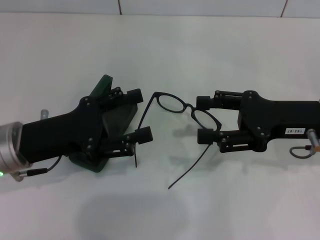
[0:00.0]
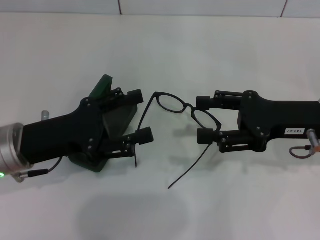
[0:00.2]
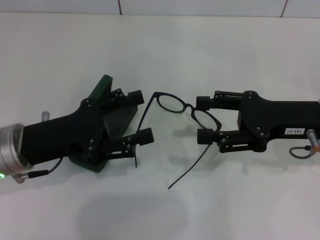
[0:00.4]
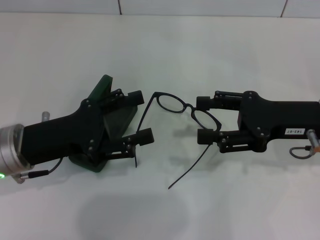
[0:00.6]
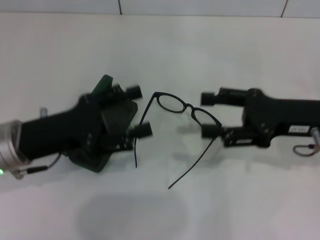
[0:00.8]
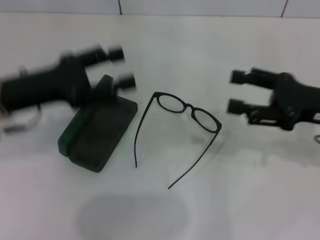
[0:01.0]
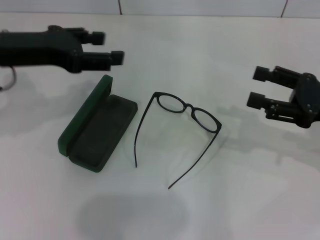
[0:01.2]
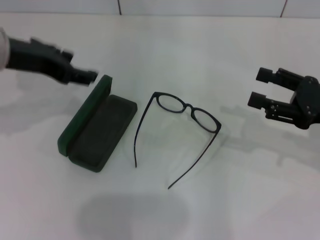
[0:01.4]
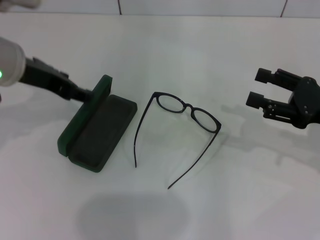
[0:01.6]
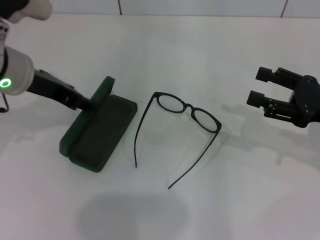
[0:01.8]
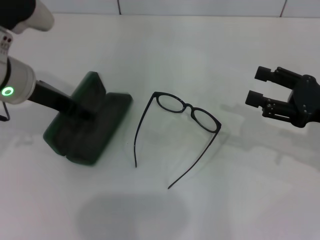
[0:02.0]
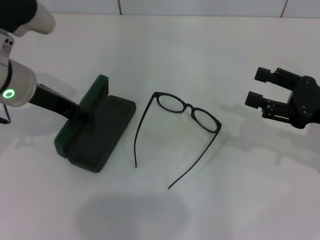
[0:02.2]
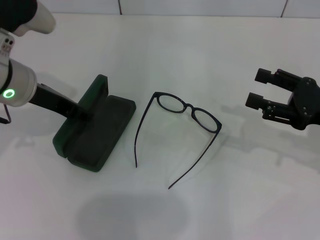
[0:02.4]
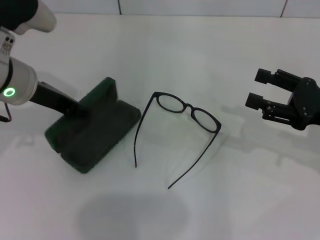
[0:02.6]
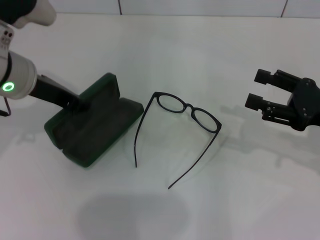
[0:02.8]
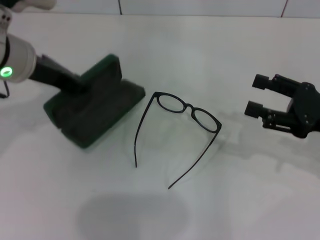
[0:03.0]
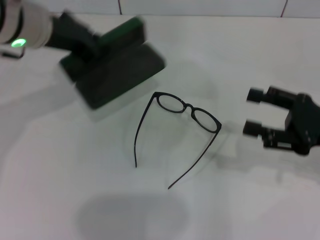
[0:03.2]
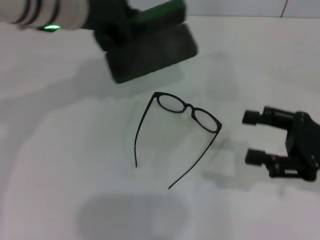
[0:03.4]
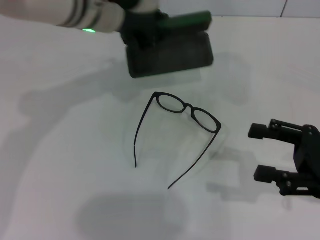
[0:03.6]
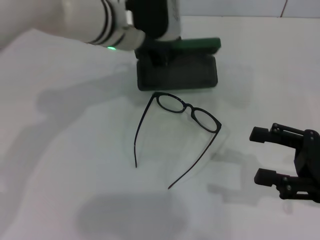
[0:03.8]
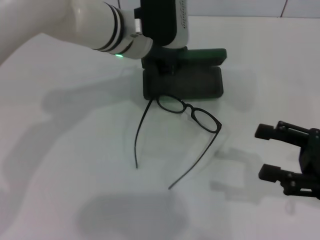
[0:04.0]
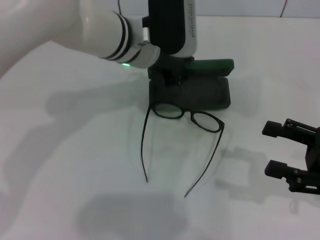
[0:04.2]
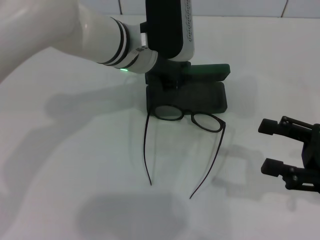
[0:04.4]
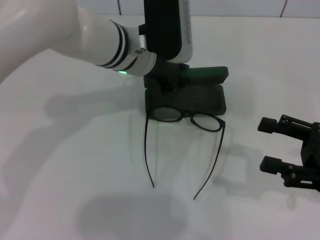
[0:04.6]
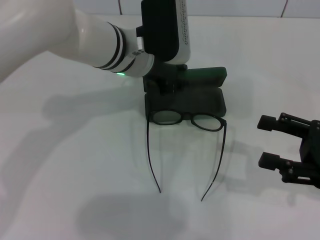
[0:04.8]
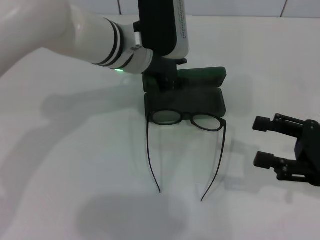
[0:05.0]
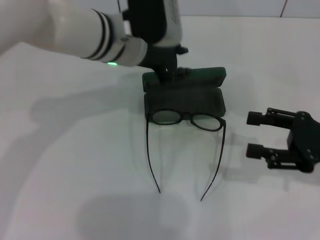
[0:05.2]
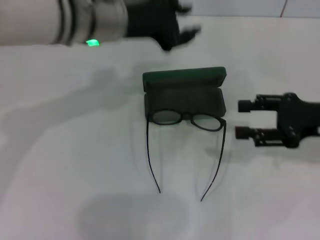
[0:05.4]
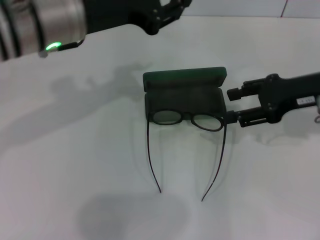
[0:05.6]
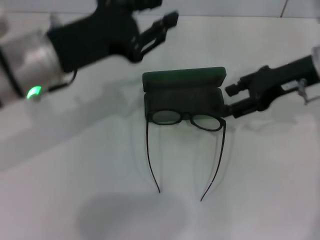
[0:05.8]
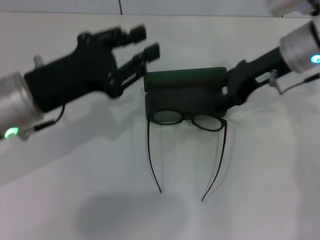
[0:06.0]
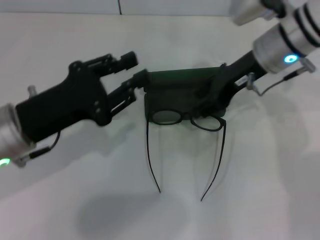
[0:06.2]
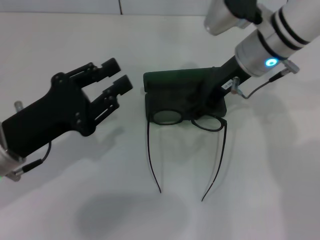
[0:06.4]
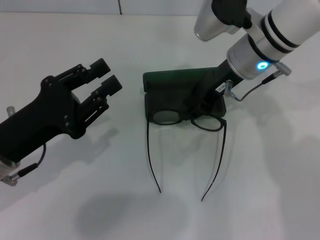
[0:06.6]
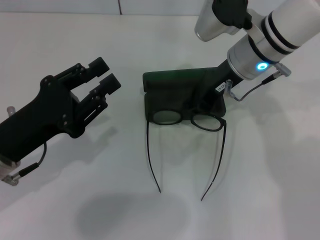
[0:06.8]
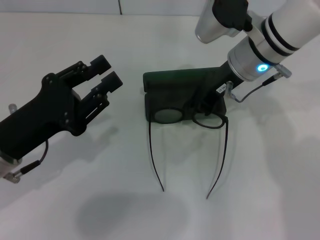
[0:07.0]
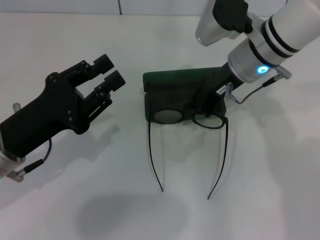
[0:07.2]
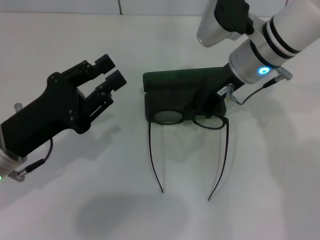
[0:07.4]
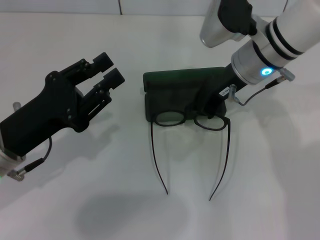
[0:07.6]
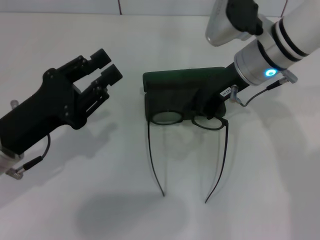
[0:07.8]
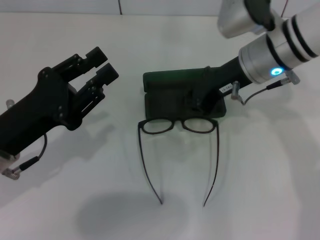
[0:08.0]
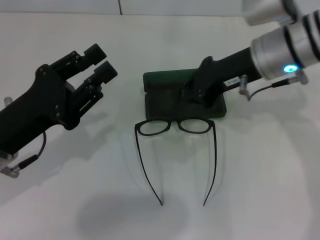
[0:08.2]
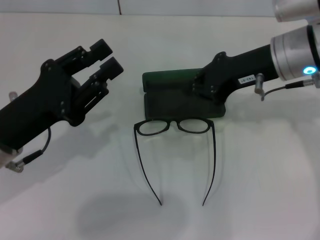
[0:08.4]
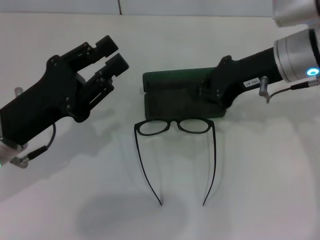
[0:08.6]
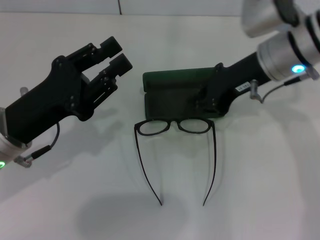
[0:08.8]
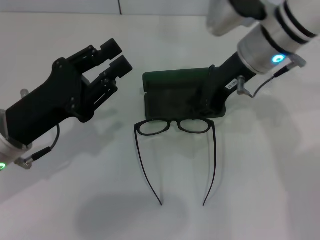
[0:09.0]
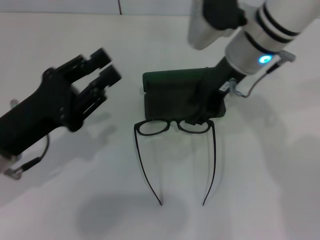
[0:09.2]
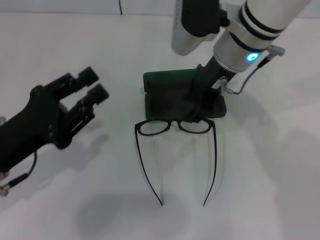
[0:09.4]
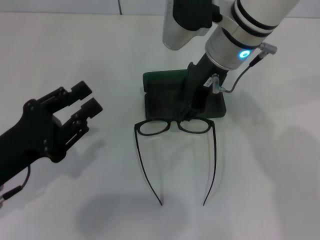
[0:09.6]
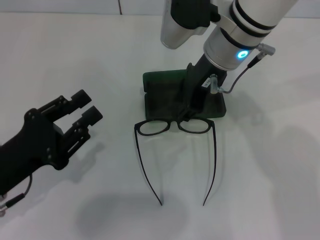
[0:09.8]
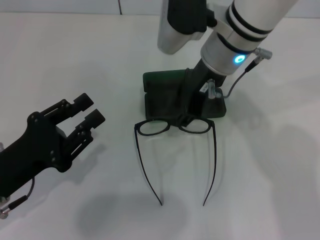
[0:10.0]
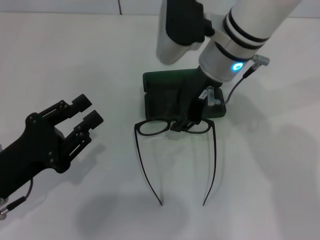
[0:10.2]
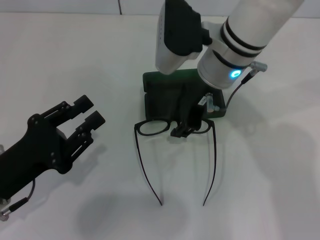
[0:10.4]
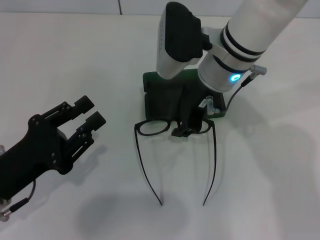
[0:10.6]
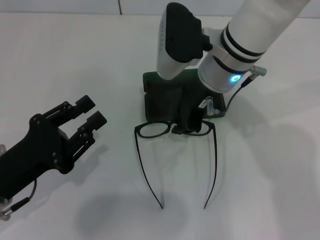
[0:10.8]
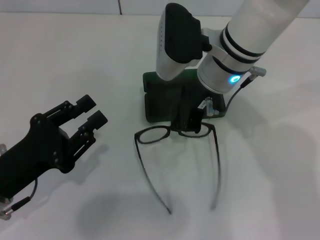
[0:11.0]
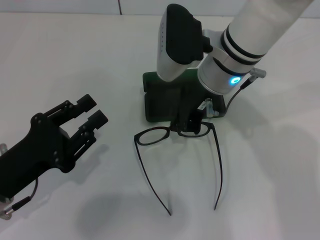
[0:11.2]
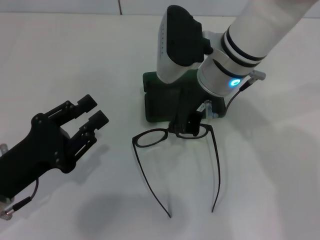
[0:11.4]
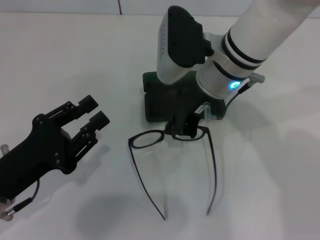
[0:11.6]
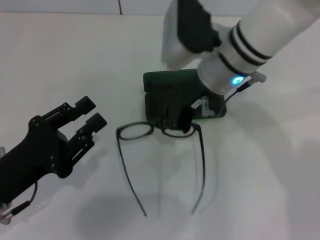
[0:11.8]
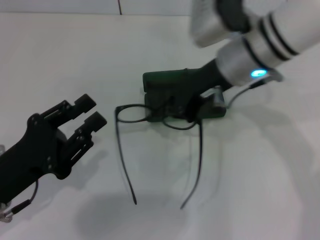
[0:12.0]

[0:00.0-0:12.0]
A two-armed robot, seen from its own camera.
Step, 0:00.0 to 0:02.4: Grab the glasses case with your left hand.
Step, 0:02.6 to 0:05.0: Place the glasses case in the center of the table with your left hand.
Step, 0:05.2 to 0:11.4: Grab the eyeglass frame with your right hand.
0:00.0 to 0:01.6: The right gripper travels to the right by approximately 5 cm; the left gripper moves upward and forward, approximately 15 cm.
0:01.6 to 0:03.0: The left gripper closes its fingers.
0:03.0 to 0:04.4: The left gripper moves to the right, approximately 15 cm; the right gripper goes roughly 5 cm backward.
0:04.4 to 0:06.0: The right gripper moves forward, to the left and upward, roughly 25 cm. The left gripper moves to the left and backward, some 20 cm.
0:06.0 to 0:07.6: The left gripper goes approximately 5 cm downward, while the right gripper heads to the left, covering roughly 5 cm, and closes up.
0:09.0 to 0:10.4: The right gripper goes some 5 cm to the left, and opens its fingers. The left gripper is displaced backward by approximately 5 cm.
0:10.4 to 0:12.0: The right gripper closes its fingers.

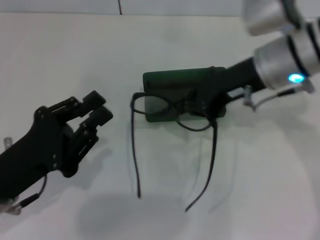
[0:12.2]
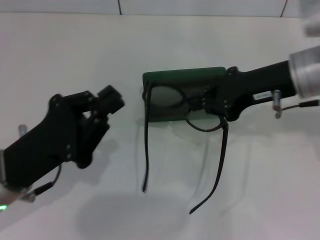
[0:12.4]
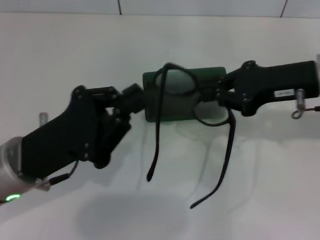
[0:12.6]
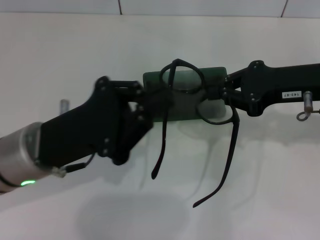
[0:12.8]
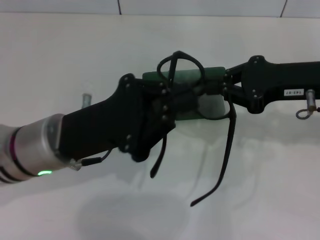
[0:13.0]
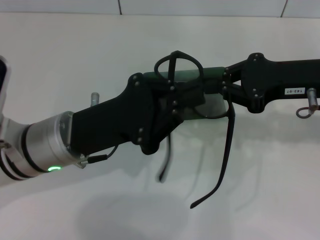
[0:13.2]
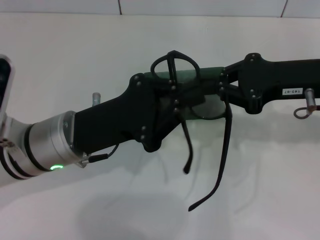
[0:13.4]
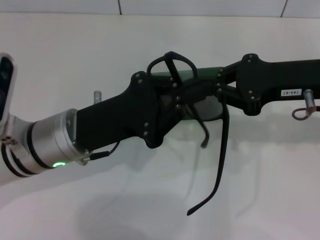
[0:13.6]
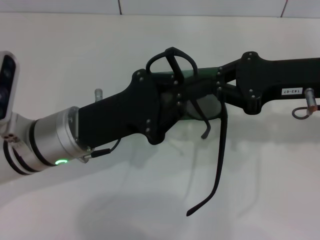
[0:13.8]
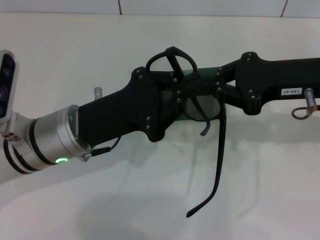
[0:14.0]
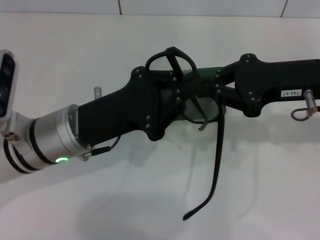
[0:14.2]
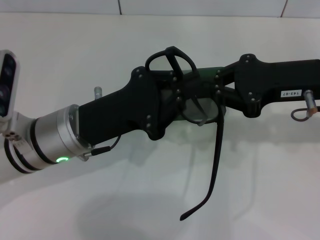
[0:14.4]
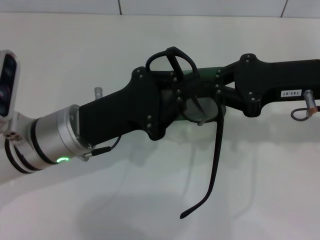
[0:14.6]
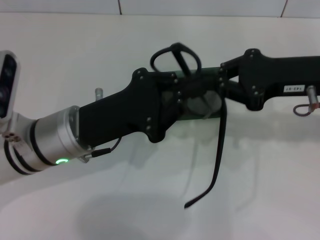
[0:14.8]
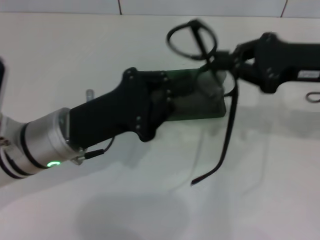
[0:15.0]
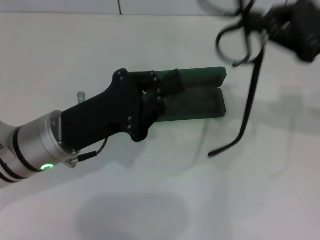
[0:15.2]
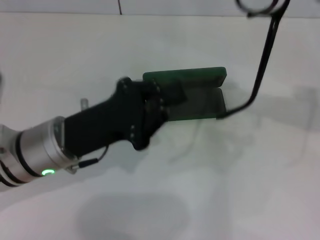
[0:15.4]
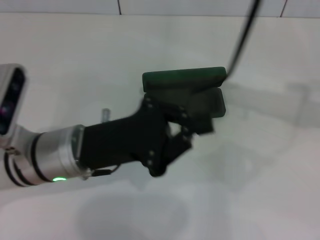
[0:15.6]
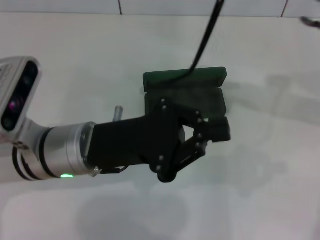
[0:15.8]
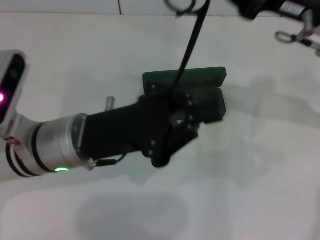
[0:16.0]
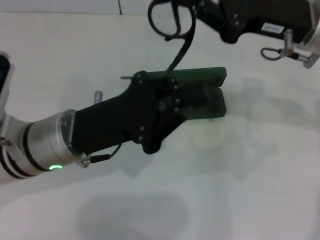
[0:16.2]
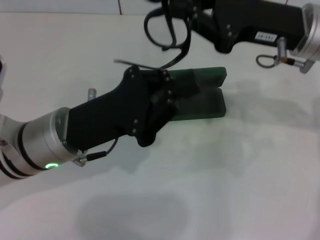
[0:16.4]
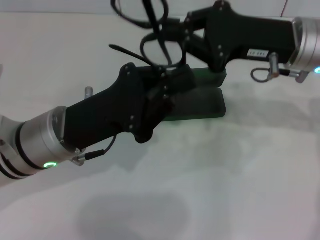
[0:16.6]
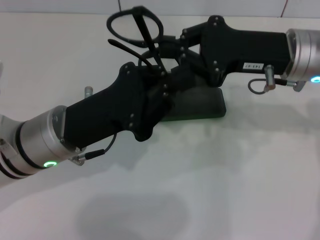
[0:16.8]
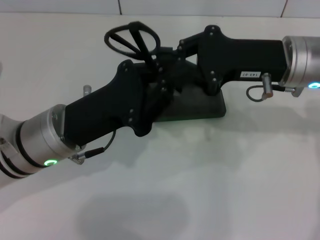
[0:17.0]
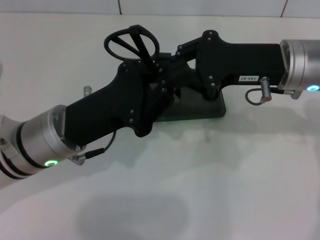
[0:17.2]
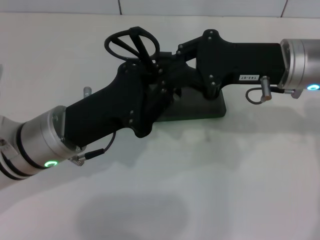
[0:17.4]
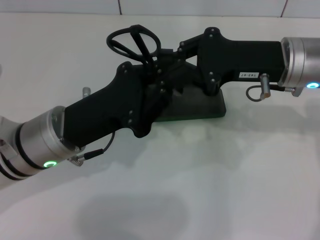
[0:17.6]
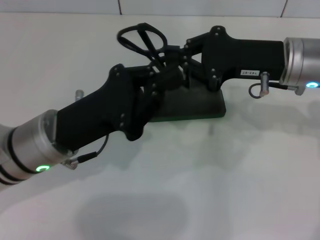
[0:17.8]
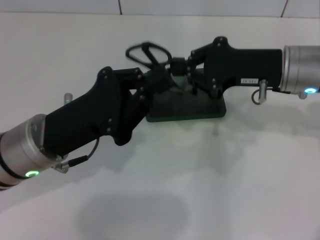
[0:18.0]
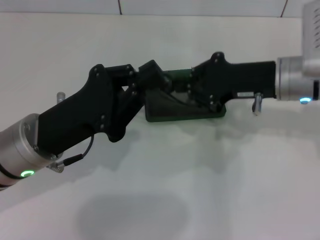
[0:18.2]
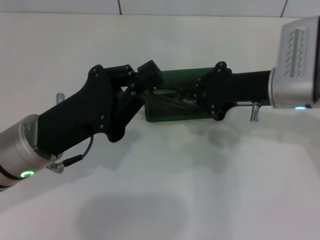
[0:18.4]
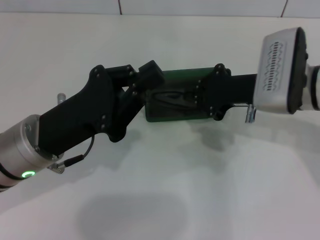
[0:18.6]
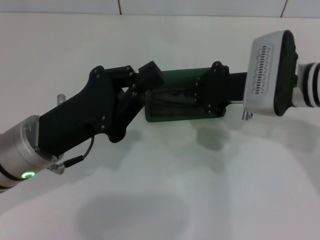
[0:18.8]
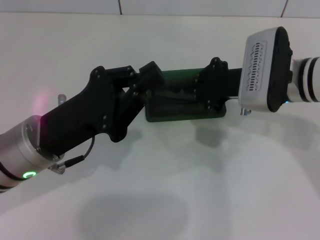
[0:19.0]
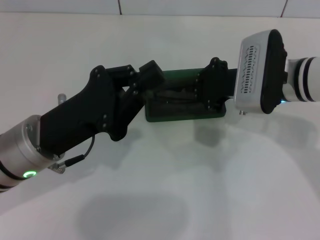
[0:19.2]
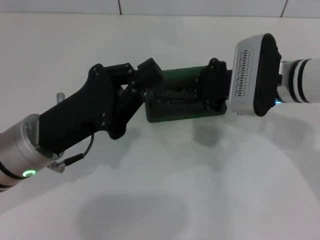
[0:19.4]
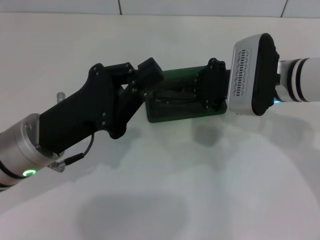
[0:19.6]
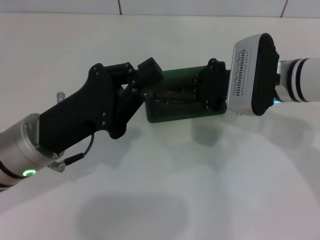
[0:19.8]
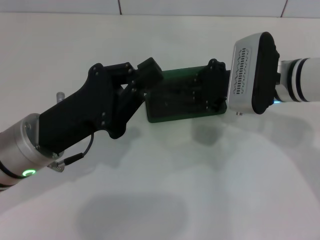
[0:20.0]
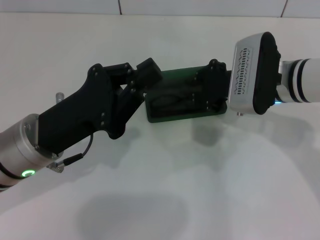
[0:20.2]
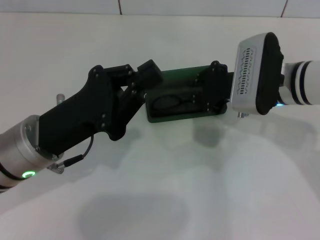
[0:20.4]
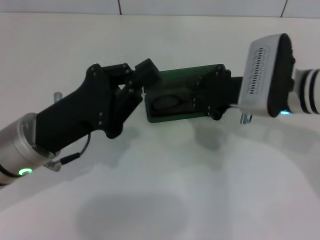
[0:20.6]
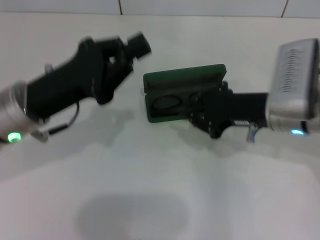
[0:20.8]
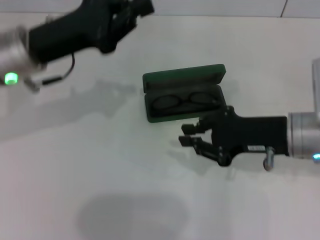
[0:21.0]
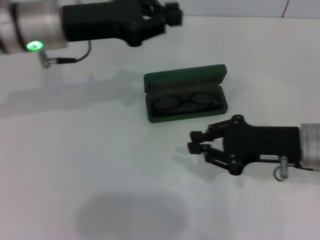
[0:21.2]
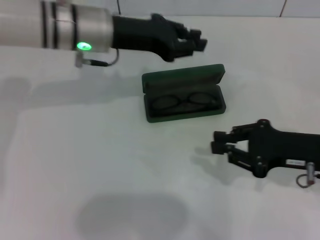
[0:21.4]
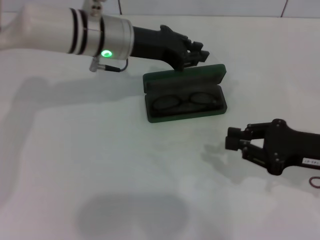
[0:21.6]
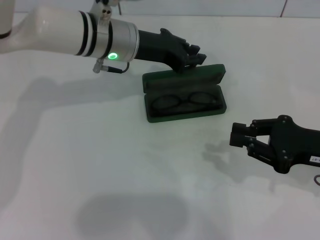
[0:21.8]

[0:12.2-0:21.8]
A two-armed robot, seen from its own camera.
Step, 0:12.2 to 0:17.6: Lift the glasses with your right hand.
Step, 0:17.8 to 0:20.4: Put the glasses into the case with your right hand.
0:12.2 to 0:13.8: The left gripper goes approximately 10 cm to the right and forward. Meanwhile the right gripper heads to the right, covering about 5 cm.
0:13.8 to 0:15.4: The right gripper heads to the right and upward, covering about 10 cm.
0:15.4 to 0:17.0: The right gripper moves to the left and downward, roughly 15 cm.
0:18.6 to 0:20.2: There are only small adjustments of the grippers.
0:20.2 to 0:21.8: The left gripper travels forward and to the right by roughly 20 cm. The right gripper shifts some 15 cm to the right and backward.
